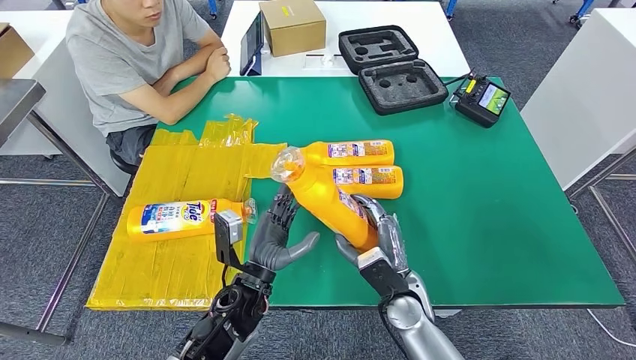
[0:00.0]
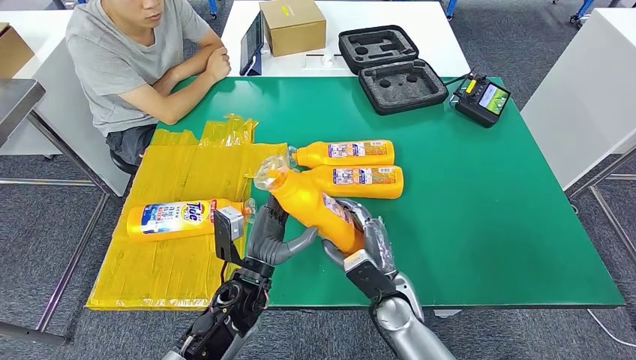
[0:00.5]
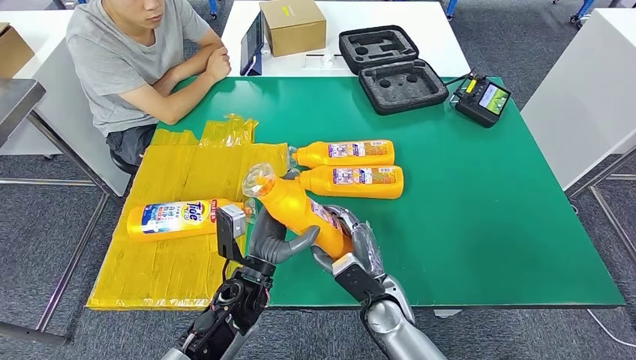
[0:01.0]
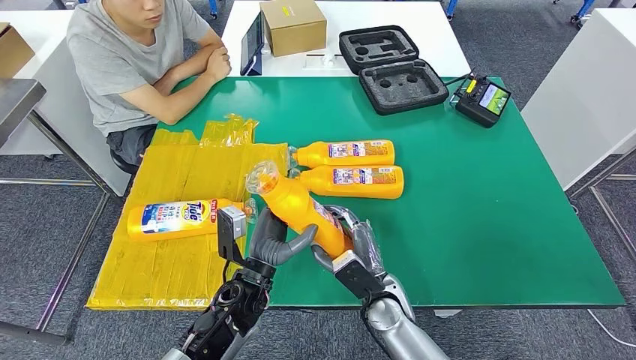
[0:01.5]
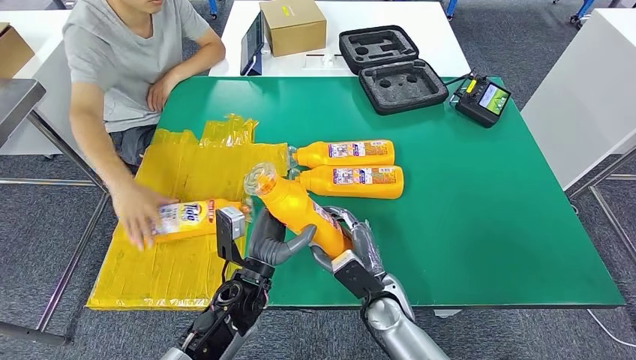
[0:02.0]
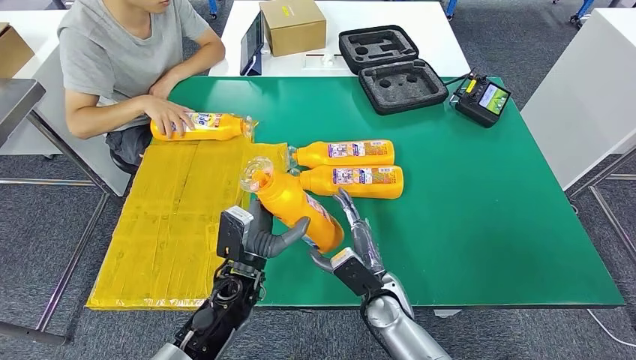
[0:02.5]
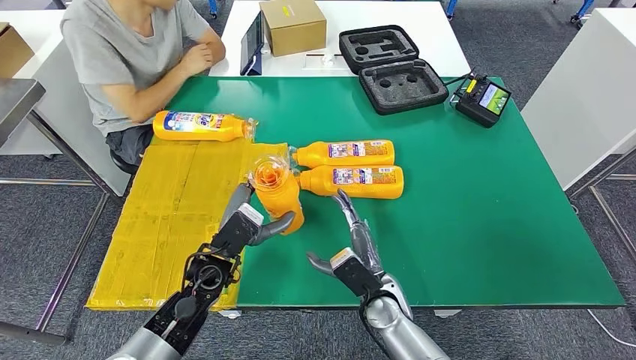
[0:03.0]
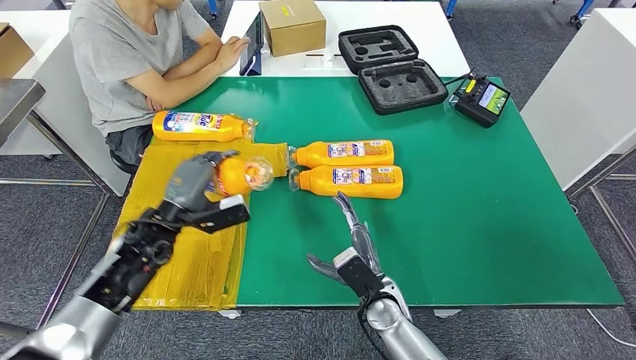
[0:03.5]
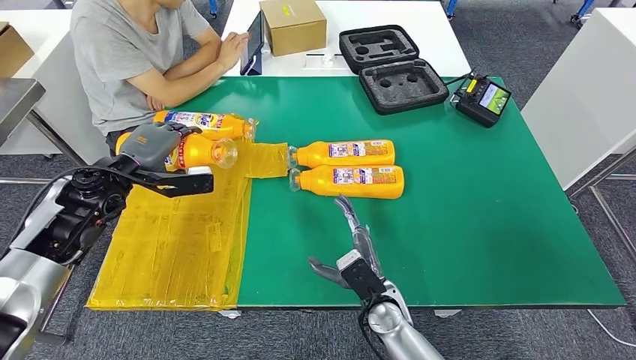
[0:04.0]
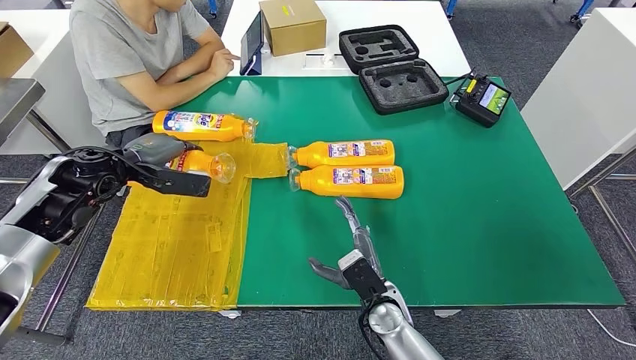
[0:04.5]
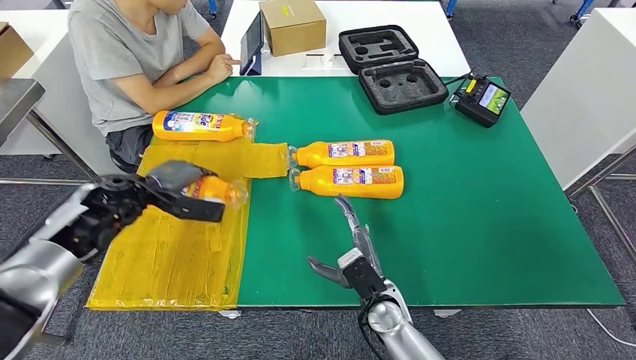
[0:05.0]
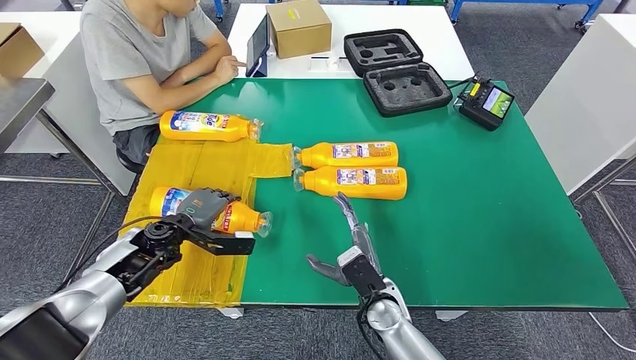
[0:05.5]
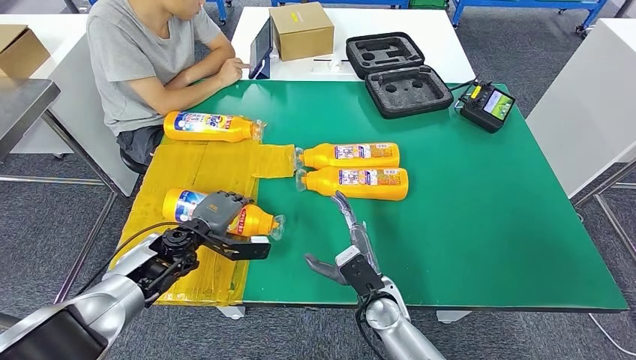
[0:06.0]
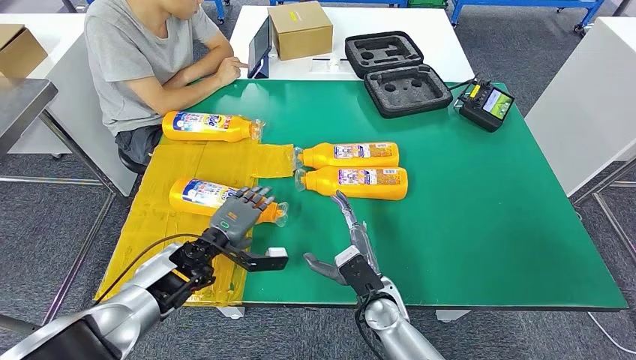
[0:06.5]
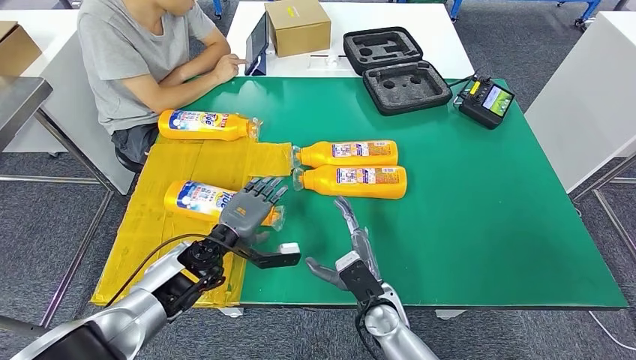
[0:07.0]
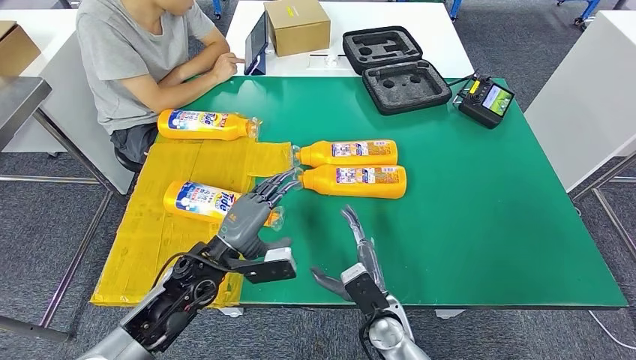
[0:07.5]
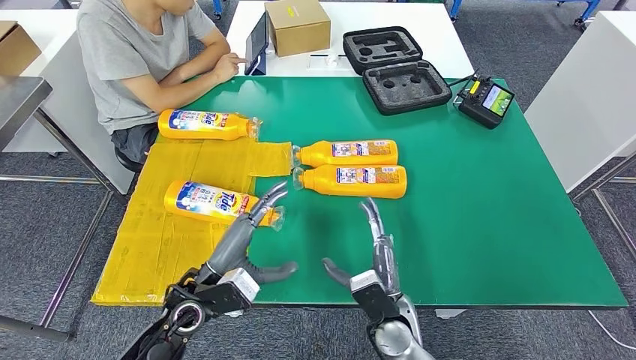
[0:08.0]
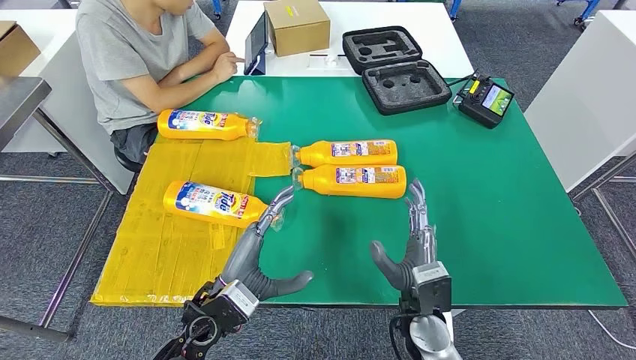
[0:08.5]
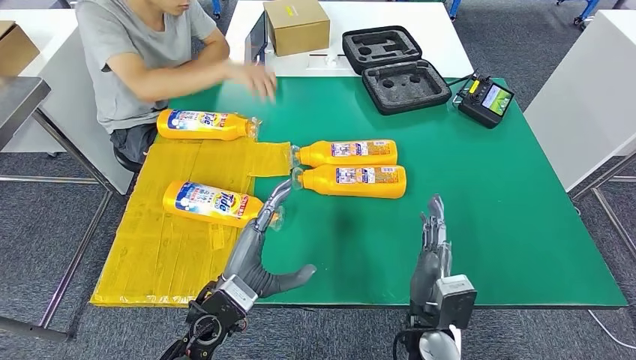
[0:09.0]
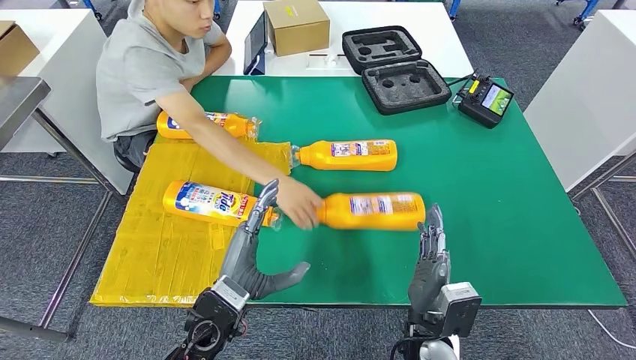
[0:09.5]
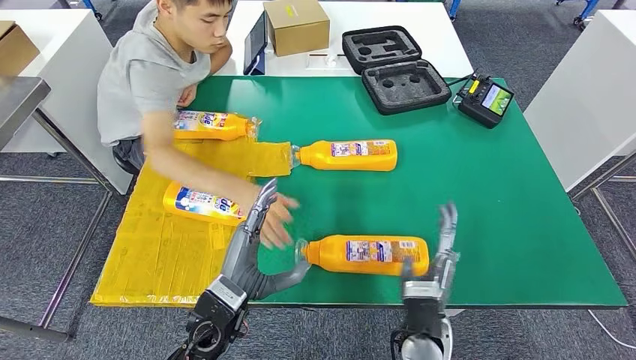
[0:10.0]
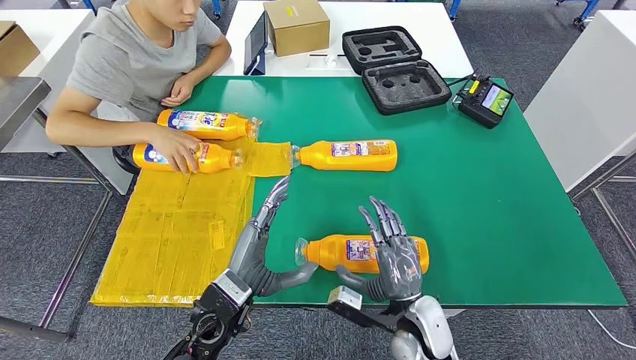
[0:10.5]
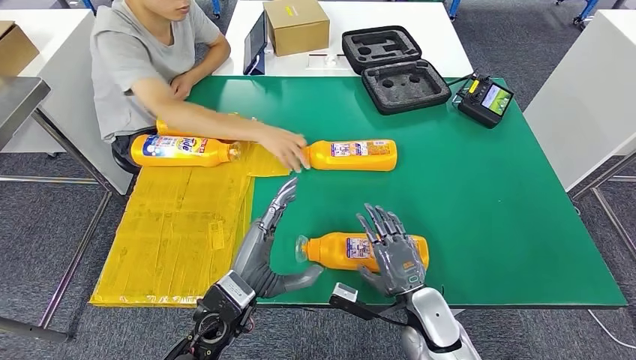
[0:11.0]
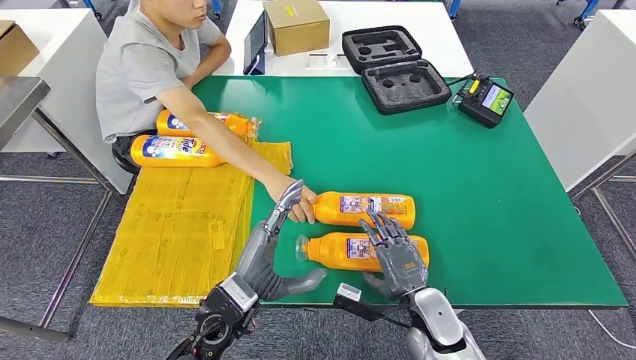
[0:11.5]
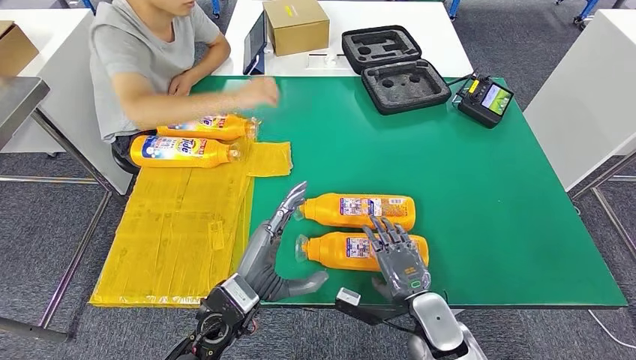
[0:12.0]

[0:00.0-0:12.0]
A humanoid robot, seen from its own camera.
Step, 0:00.0 to 0:05.5: Flip the fast-moving consumer goods bottle to the front side.
0:00.0 to 0:02.0: The hands make only small movements.

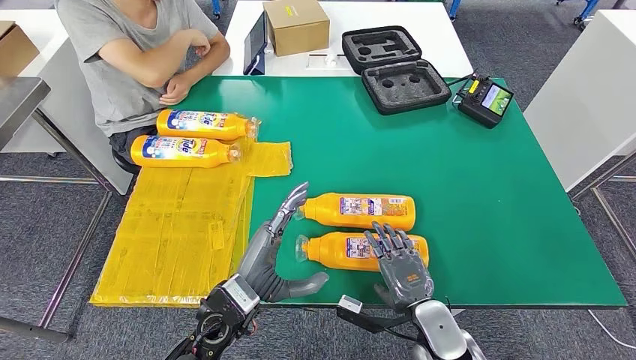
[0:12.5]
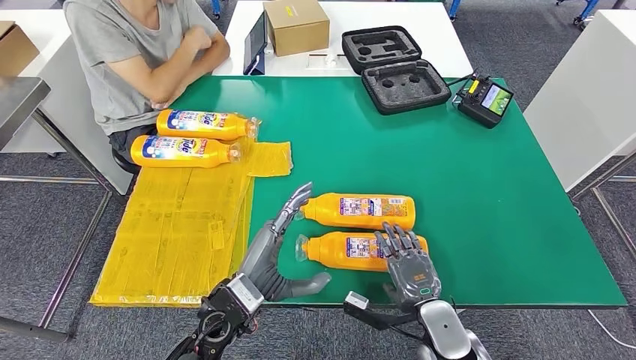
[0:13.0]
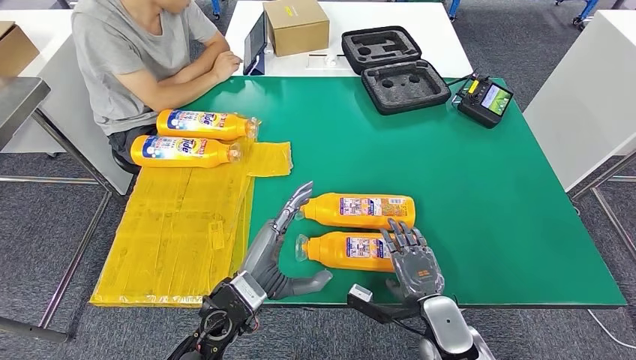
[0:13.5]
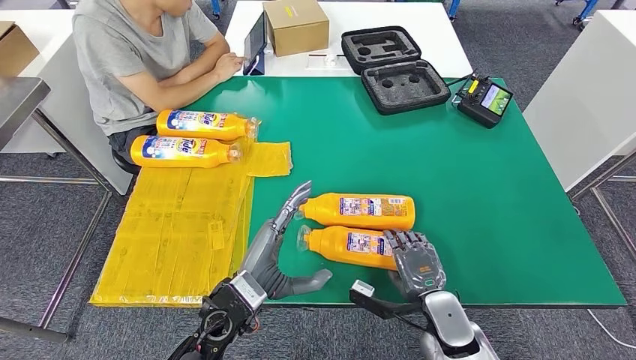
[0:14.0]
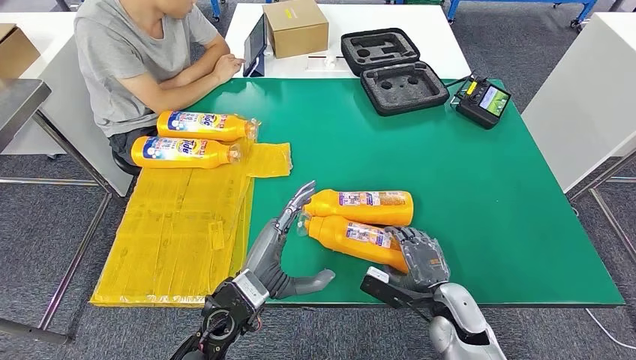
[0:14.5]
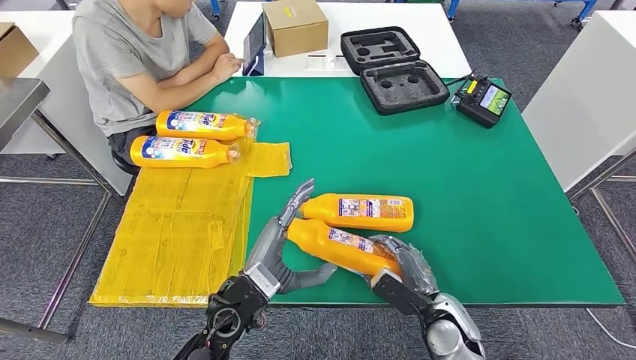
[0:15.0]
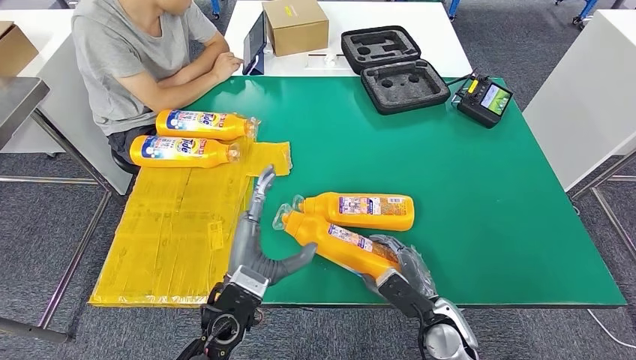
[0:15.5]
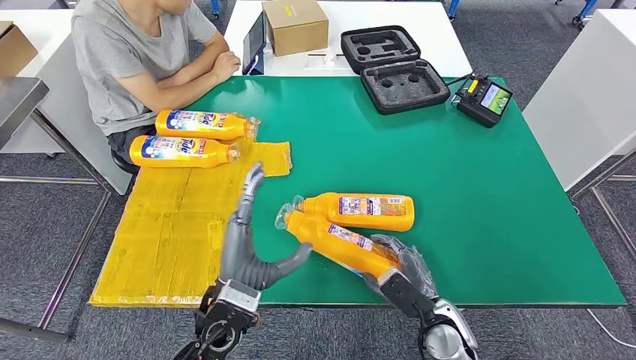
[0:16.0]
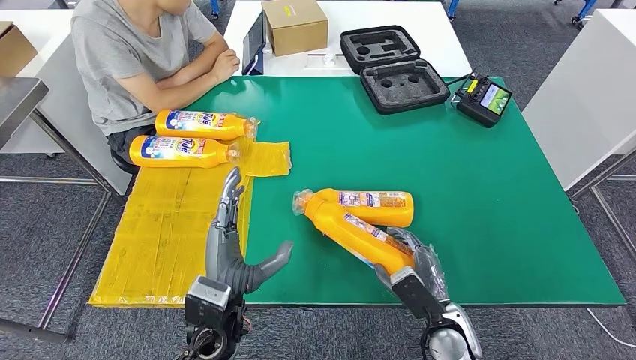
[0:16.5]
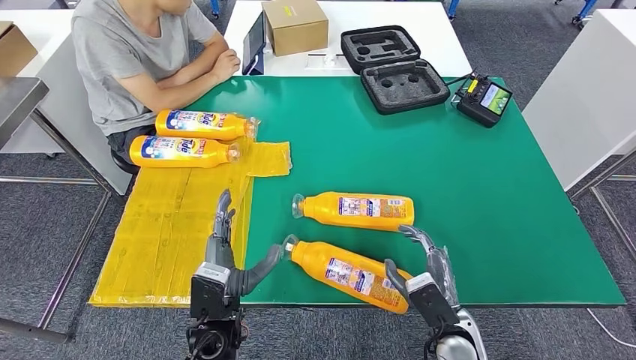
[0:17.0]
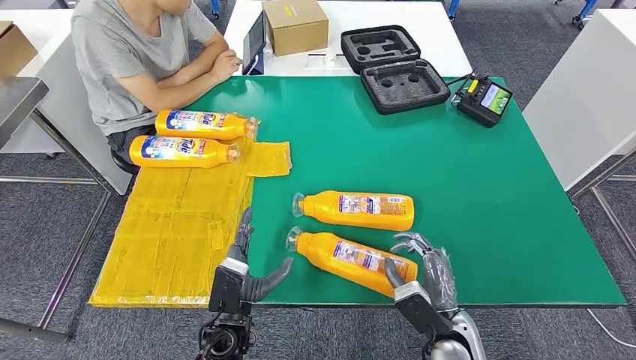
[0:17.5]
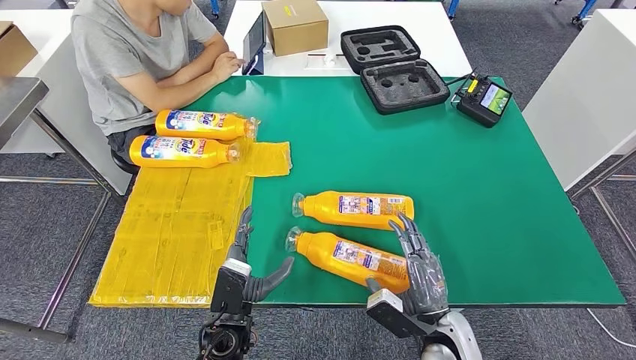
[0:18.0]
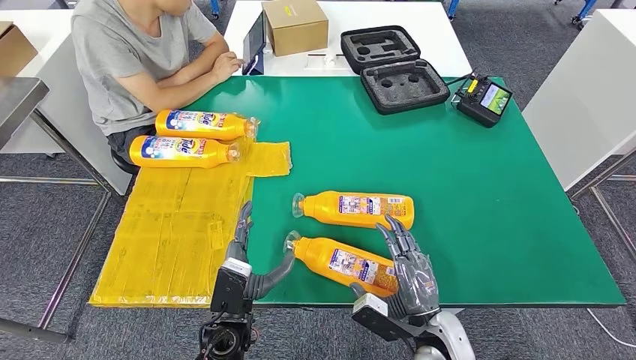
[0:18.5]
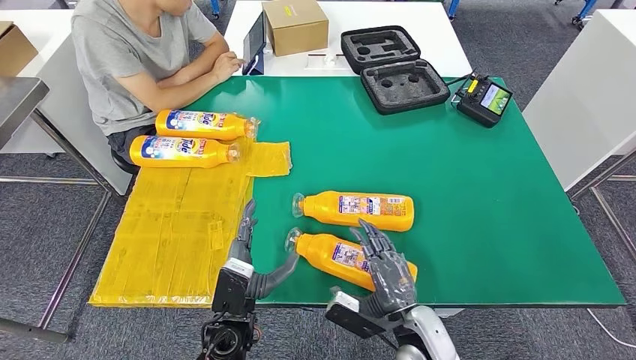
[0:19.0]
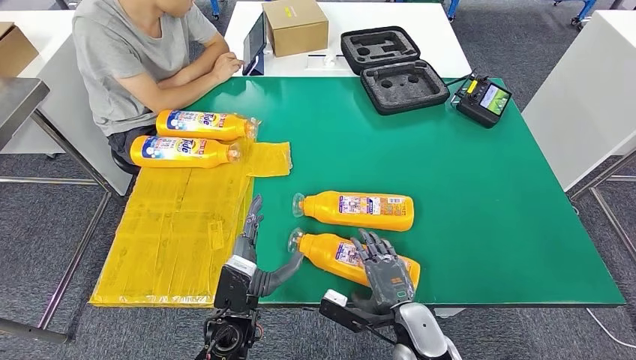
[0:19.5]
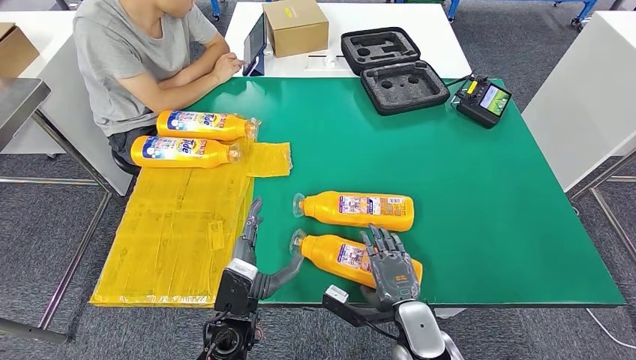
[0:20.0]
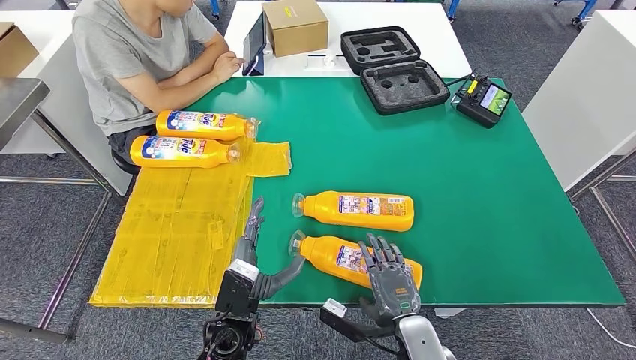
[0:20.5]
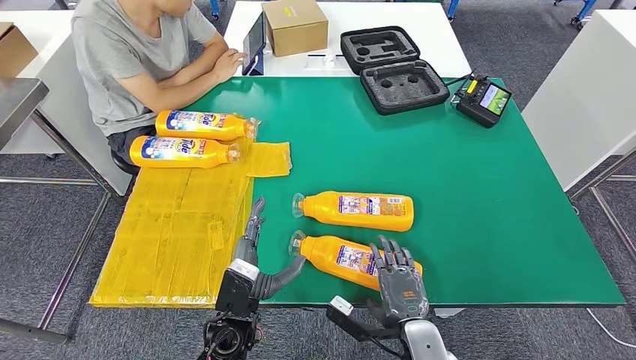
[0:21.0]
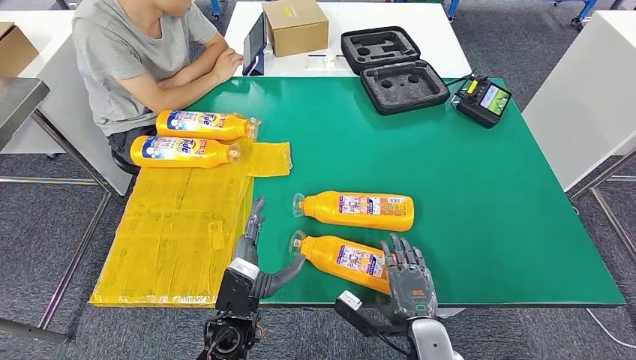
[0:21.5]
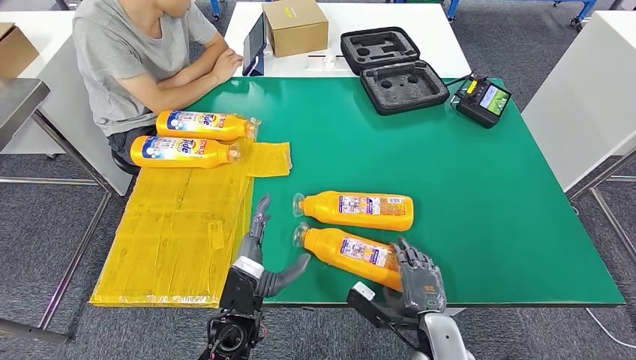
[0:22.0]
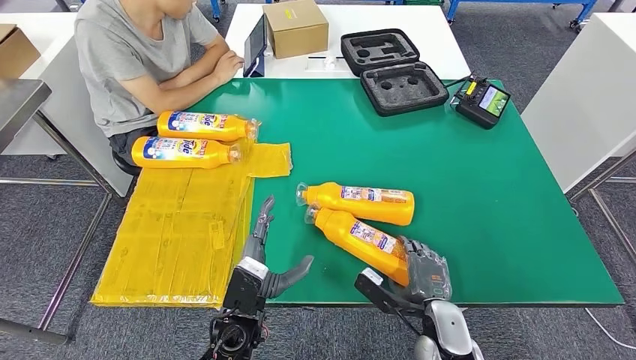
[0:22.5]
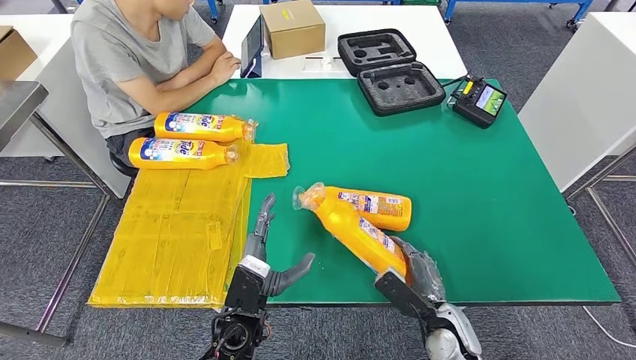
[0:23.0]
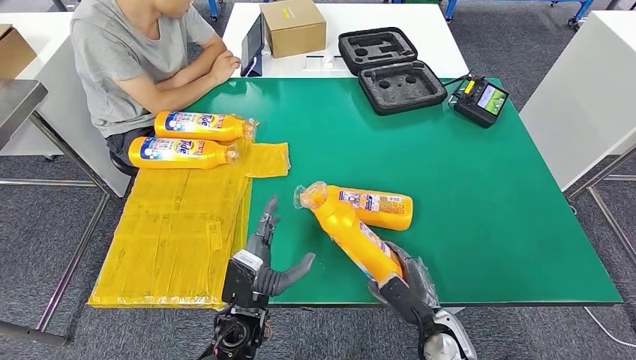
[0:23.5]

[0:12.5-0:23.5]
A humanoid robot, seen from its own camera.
0:16.0 to 0:18.0: The left hand is displaced downward by some 10 cm.
0:18.0 to 0:20.0: The right hand changes place by roughly 5 cm.
0:20.0 to 0:21.5: The hands stay close to where they were, moving slightly.
0:21.5 to 0:23.5: The right hand ends up approximately 5 cm from where it was.
